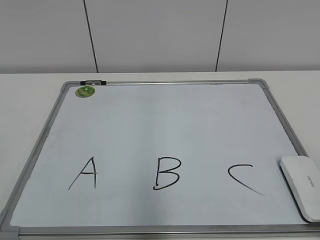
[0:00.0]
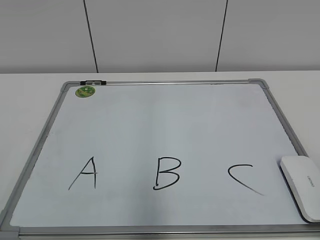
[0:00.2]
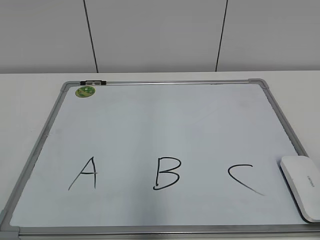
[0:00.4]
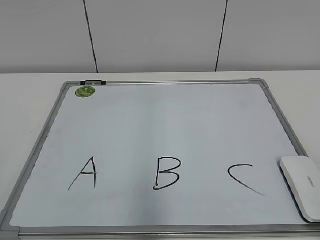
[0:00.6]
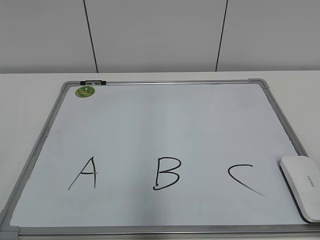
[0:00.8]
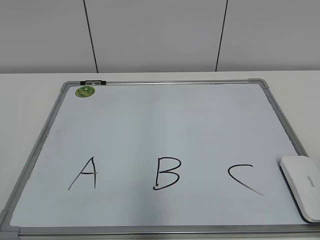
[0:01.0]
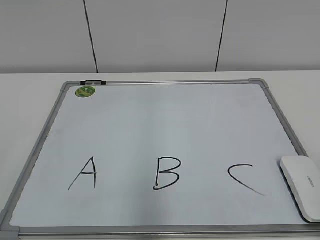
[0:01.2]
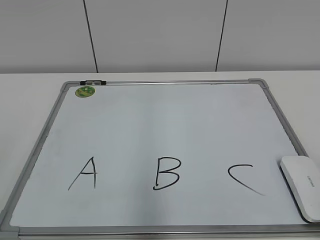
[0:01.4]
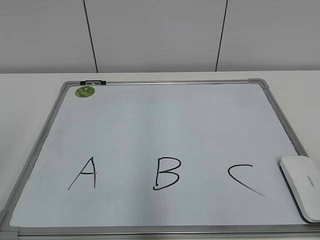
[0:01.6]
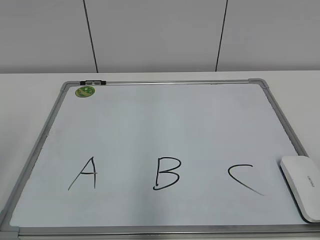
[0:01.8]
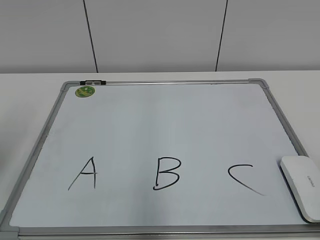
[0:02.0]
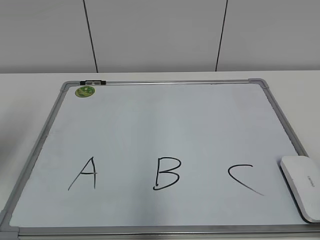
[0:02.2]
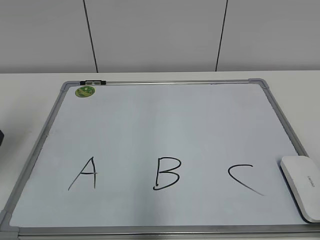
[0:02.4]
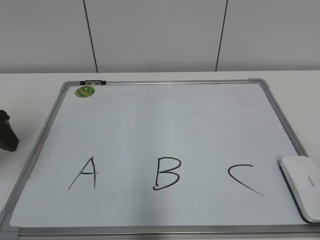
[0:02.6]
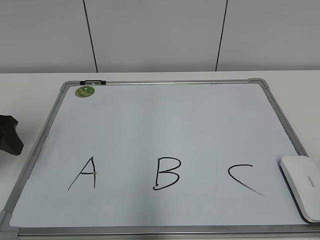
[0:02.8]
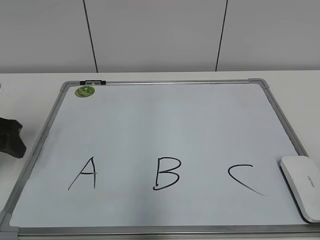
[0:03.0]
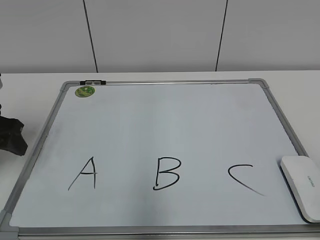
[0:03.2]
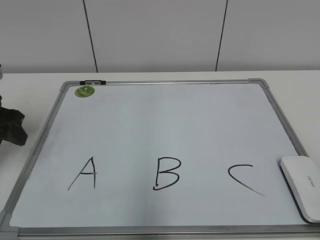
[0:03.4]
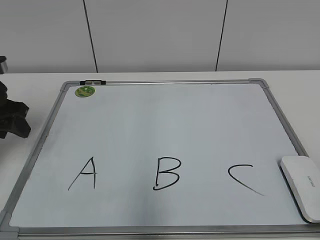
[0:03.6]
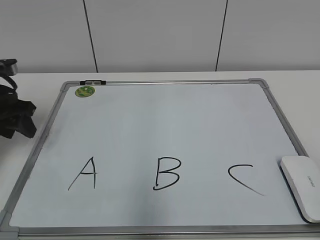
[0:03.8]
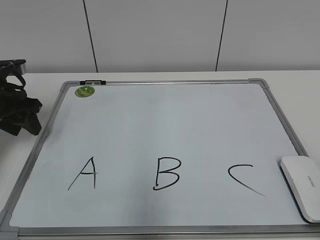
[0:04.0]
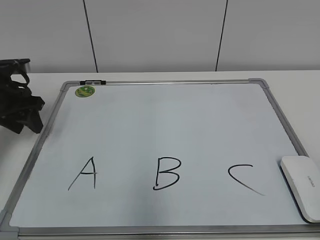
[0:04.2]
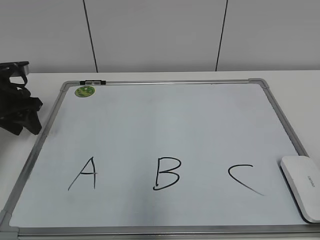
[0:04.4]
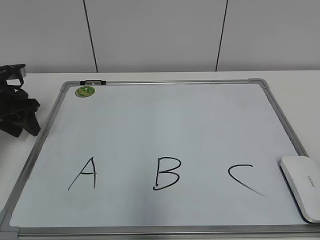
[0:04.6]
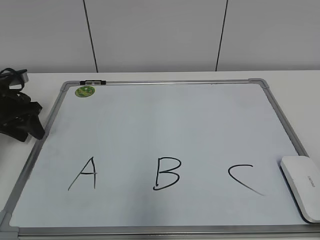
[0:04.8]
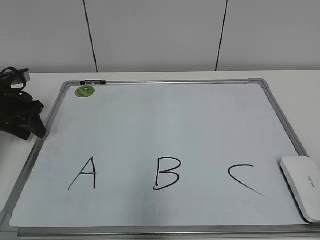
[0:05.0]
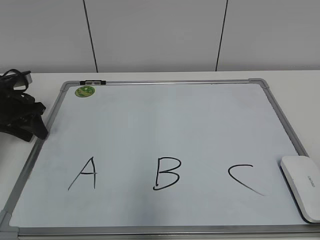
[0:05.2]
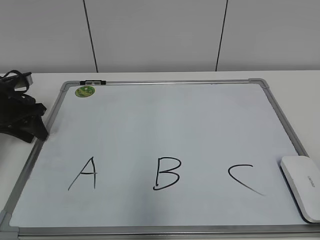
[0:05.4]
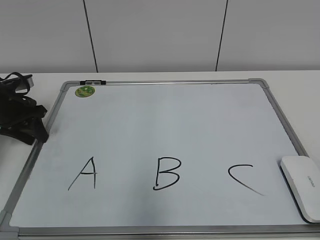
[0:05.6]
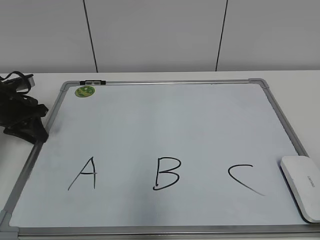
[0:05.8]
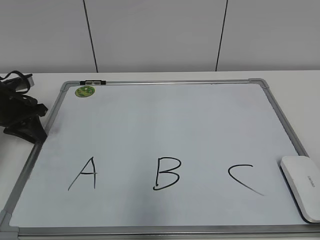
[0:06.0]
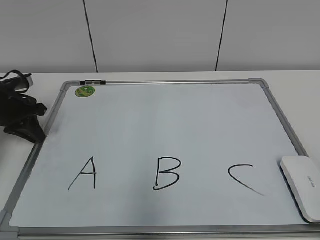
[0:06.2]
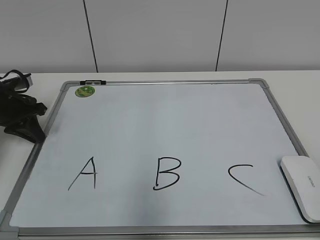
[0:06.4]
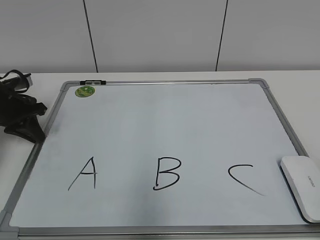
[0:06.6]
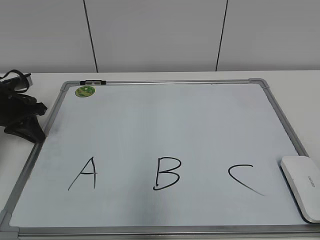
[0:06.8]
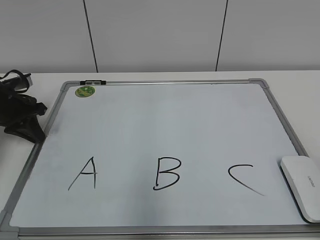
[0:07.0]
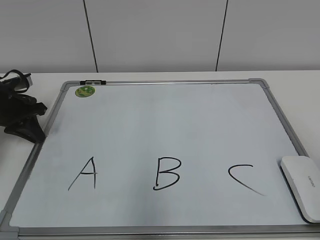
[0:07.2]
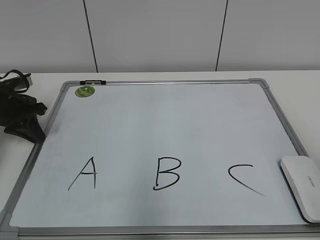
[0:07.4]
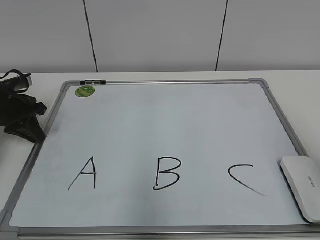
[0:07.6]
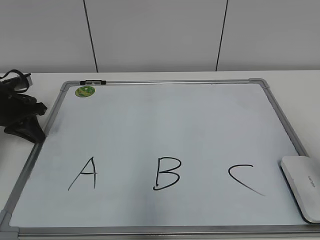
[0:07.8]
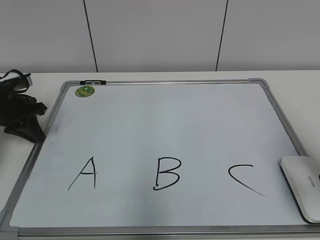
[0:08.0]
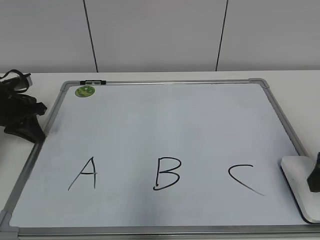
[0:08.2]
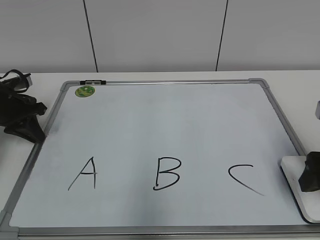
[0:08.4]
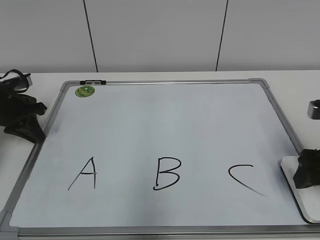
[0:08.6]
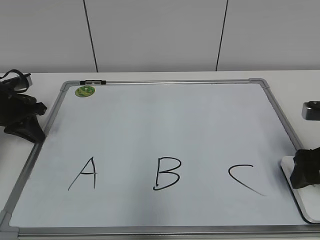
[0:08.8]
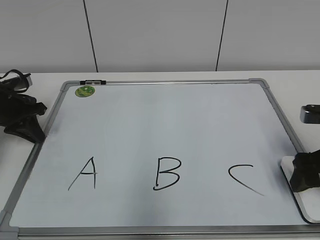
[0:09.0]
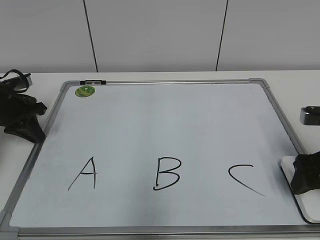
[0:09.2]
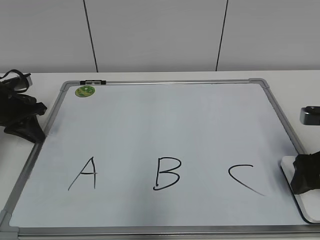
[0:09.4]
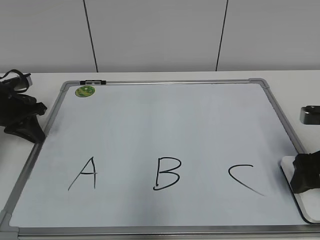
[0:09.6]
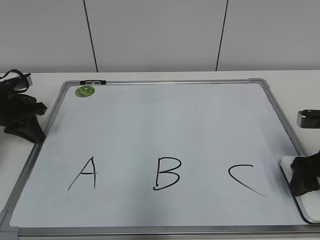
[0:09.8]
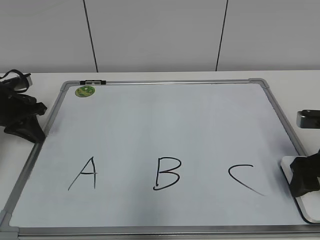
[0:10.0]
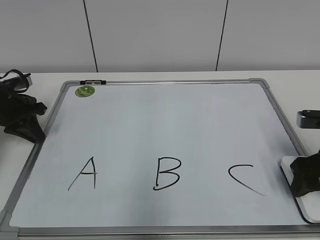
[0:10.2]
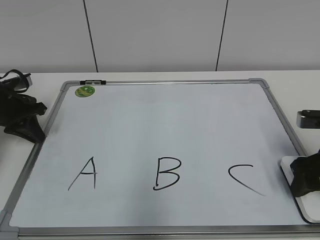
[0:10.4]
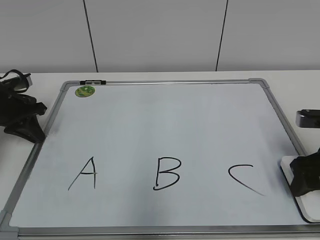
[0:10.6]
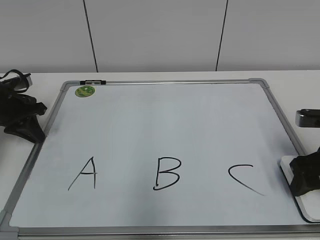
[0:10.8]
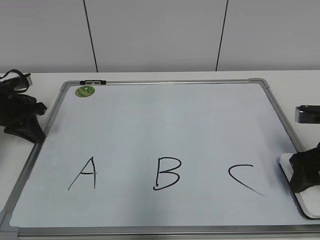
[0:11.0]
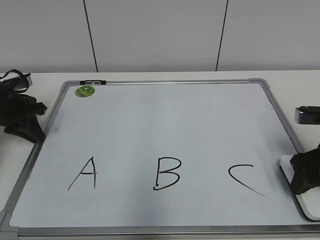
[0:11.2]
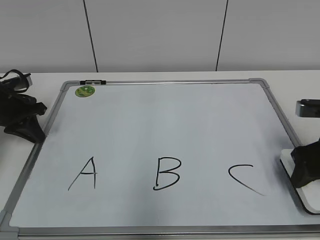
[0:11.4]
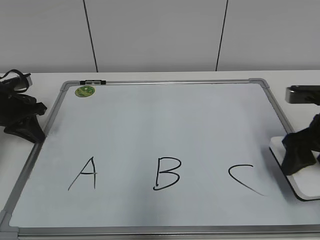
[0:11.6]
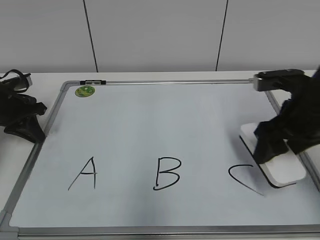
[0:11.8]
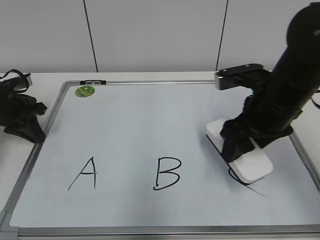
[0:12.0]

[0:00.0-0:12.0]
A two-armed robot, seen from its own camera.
Task of the whole recording: pick up the eraser on the blackboard and erase the letter "B".
Step, 0:00.0 to 0:06.0: Hold the drawing board steady with your left hand.
Step, 0:06.2 to 0:11.0: Grab the eraser with your right hand.
0:01.6 to 0:03.0: The left gripper heads forward and downward, covering about 25 cm.
0:03.0 to 0:04.4: The left gripper heads forward, covering about 10 cm.
0:04.4 to 0:06.0: The left gripper closes up.
0:07.6 to 0:09.0: The right gripper goes roughly 20 cm forward and downward, and opens its fingers.
0:09.0 to 0:10.4: The right gripper closes its fingers.
0:10.4 to 0:12.0: The right gripper shifts roughly 15 cm to the left and upward.

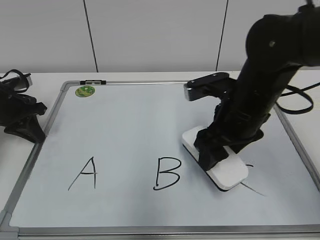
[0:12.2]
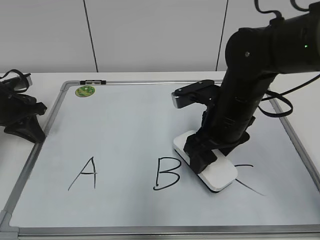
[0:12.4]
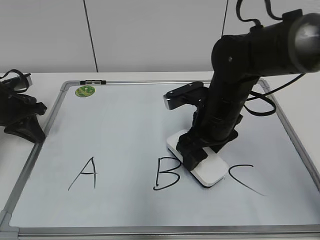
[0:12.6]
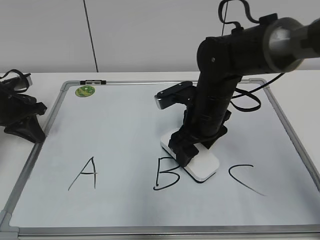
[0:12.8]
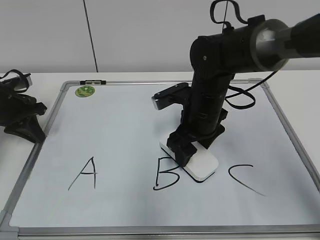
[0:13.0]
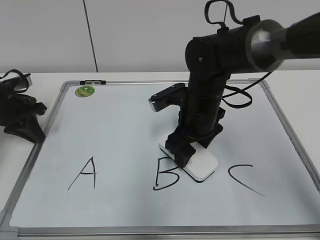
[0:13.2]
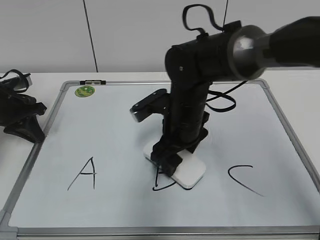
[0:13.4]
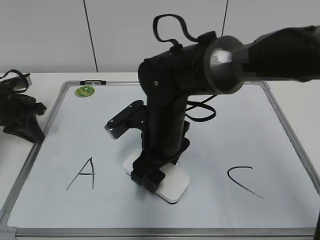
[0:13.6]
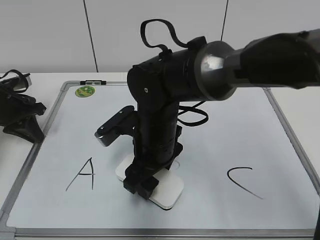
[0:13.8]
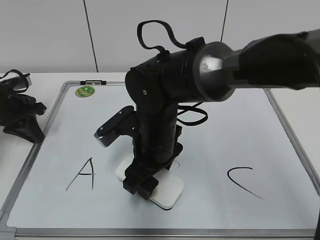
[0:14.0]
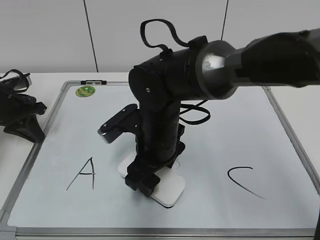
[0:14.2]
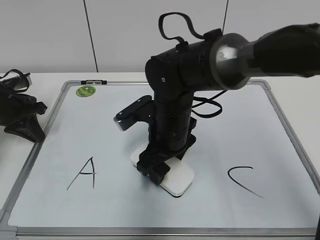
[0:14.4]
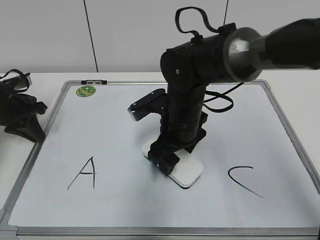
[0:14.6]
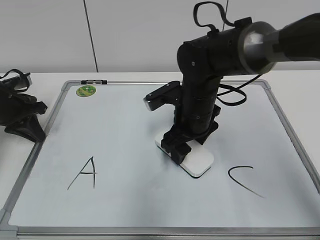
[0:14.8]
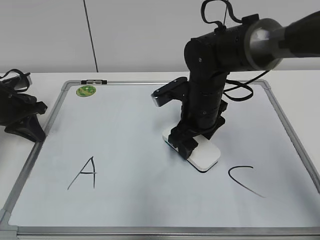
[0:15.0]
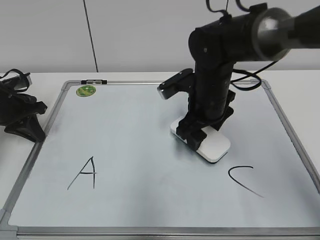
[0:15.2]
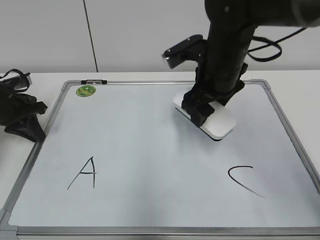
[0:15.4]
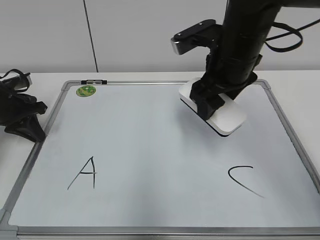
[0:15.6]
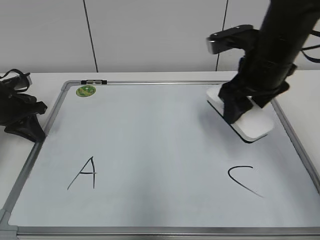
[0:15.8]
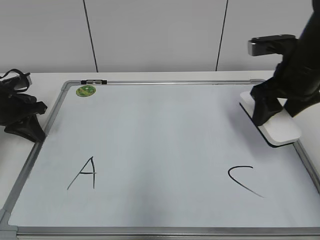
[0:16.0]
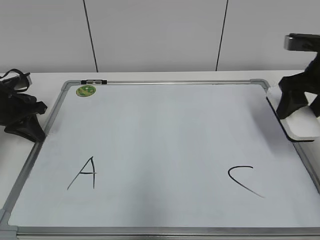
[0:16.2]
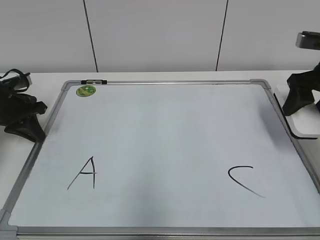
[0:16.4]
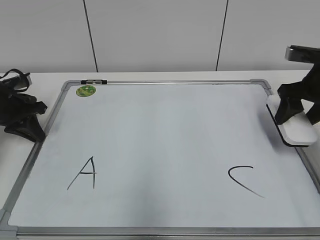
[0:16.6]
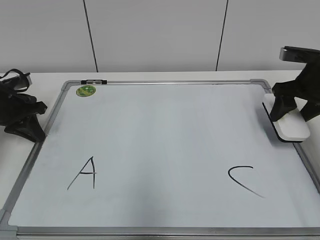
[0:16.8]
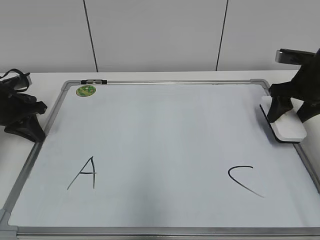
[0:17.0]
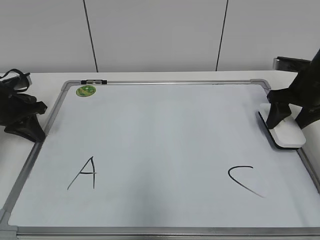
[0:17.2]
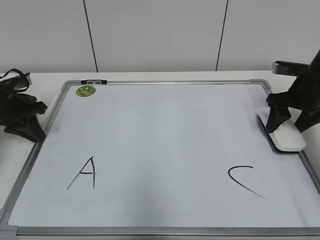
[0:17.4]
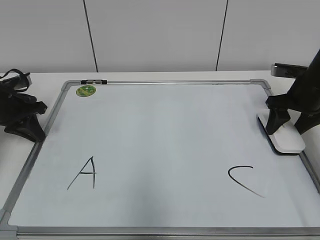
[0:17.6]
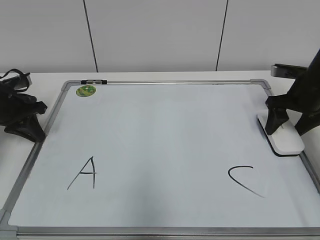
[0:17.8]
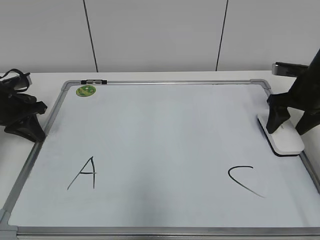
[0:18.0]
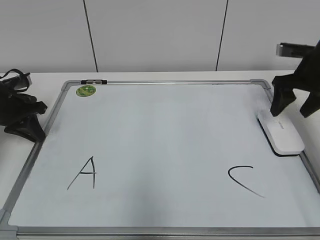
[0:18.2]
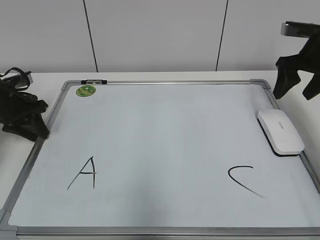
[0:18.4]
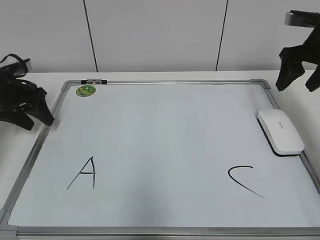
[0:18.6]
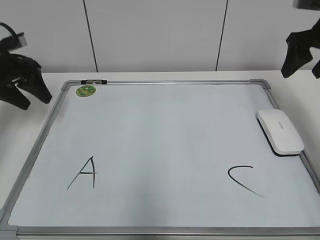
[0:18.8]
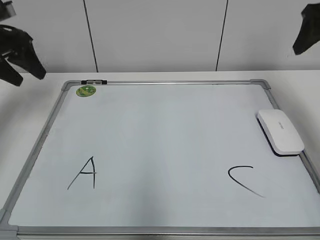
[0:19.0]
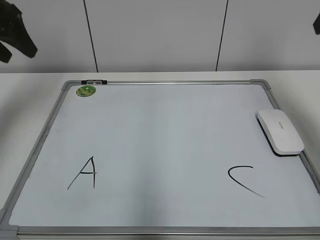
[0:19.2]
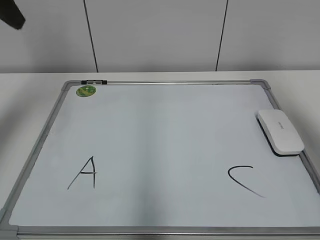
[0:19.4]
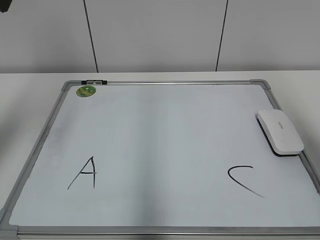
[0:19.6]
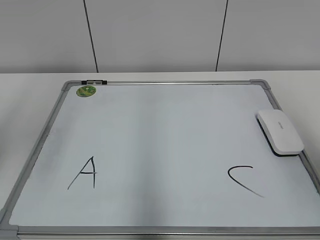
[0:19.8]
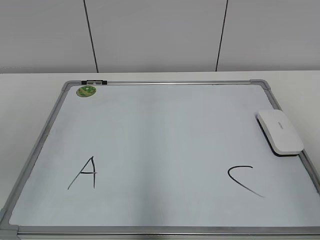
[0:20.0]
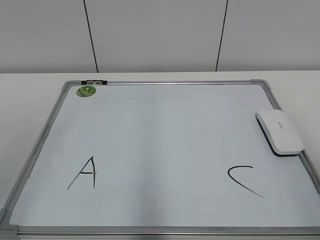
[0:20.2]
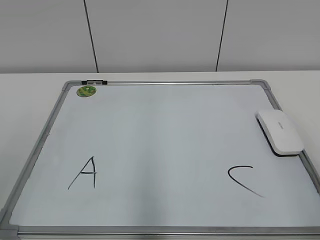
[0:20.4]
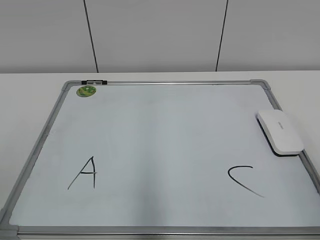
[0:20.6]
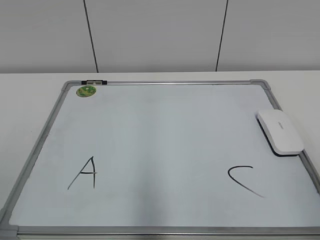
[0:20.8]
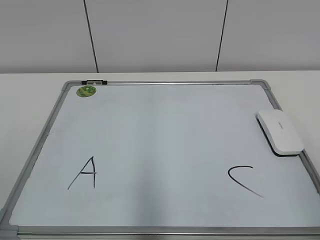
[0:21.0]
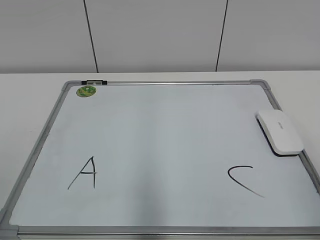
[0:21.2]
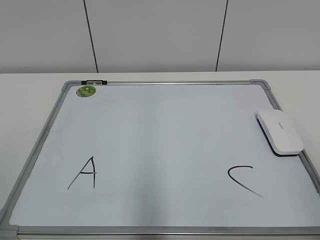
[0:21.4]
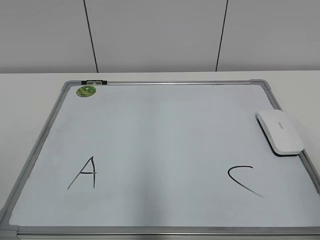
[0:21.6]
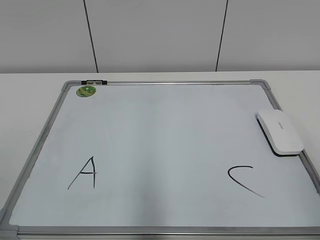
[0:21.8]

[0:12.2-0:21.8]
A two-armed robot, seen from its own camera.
Task of the whole recording: pick up the eraser on the blackboard and erase the letter "B".
Step, 0:12.2 to 0:15.0: Erase the letter B with your right hand.
Step, 0:15.2 to 0:17.6: Put down the eraser with your right hand.
0:12.2 to 0:13.8: The right gripper heads to the left, covering some 15 cm.
0:13.8 to 0:15.4: The right gripper moves to the right, upward and forward, approximately 15 cm.
0:15.4 to 0:17.0: The right gripper is displaced to the right by about 20 cm.
0:17.0 to 0:18.6: The left gripper opens up; the right gripper shifts roughly 5 cm upward, and opens its fingers.
0:18.6 to 0:20.2: The right gripper goes about 35 cm backward. Meanwhile the left gripper moves backward and upward, roughly 35 cm.
